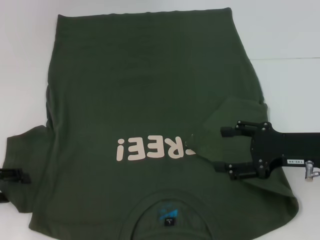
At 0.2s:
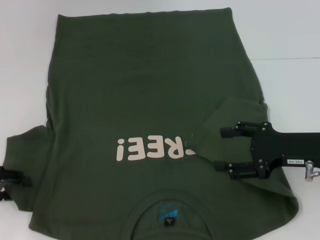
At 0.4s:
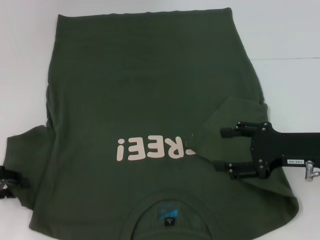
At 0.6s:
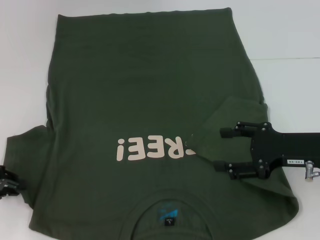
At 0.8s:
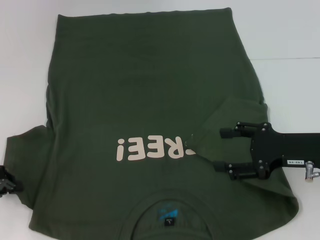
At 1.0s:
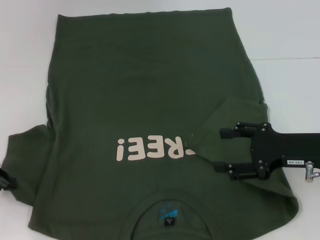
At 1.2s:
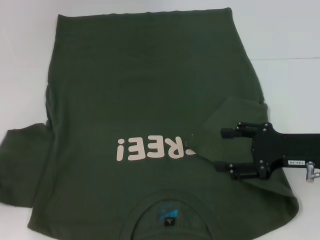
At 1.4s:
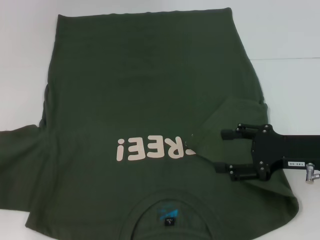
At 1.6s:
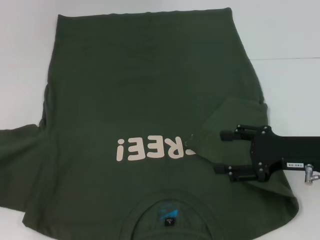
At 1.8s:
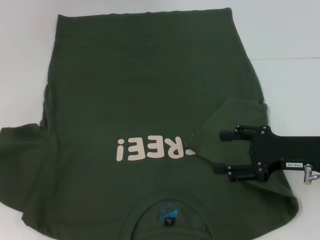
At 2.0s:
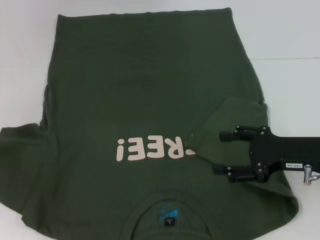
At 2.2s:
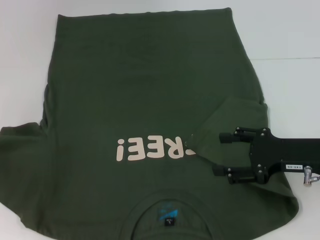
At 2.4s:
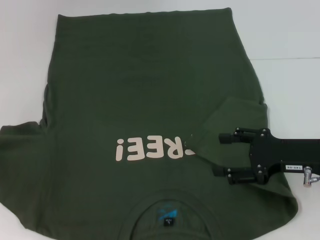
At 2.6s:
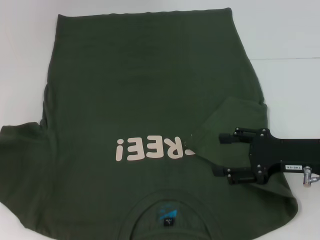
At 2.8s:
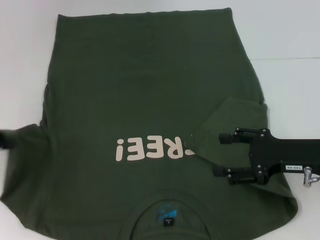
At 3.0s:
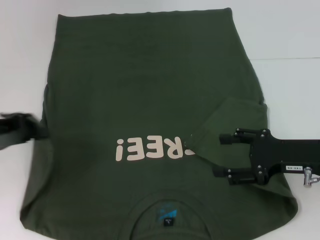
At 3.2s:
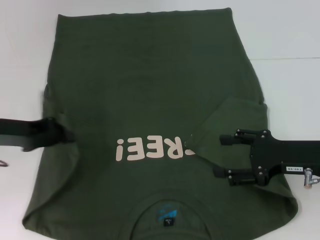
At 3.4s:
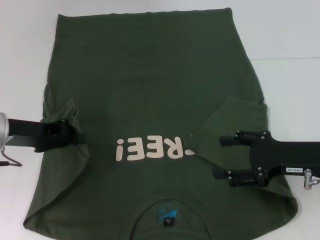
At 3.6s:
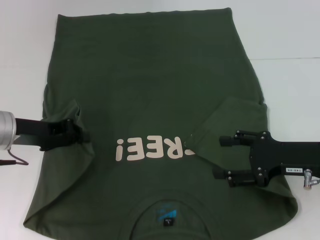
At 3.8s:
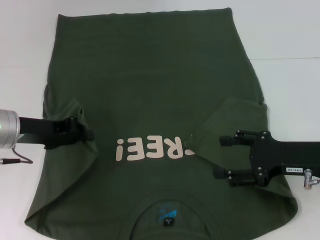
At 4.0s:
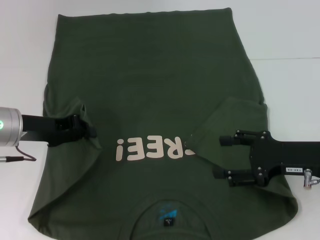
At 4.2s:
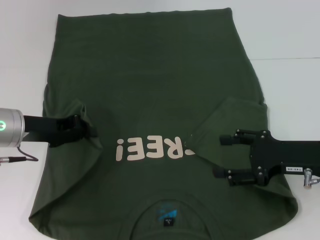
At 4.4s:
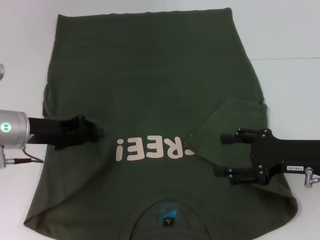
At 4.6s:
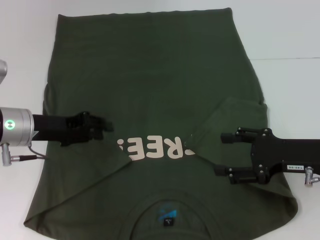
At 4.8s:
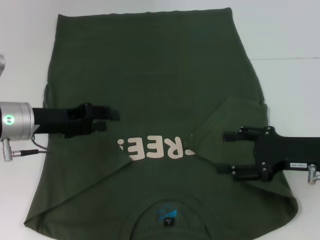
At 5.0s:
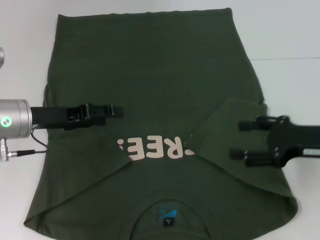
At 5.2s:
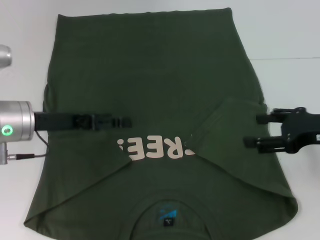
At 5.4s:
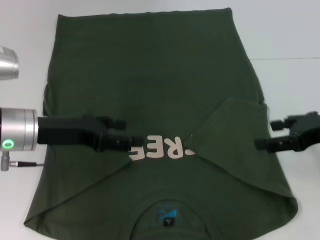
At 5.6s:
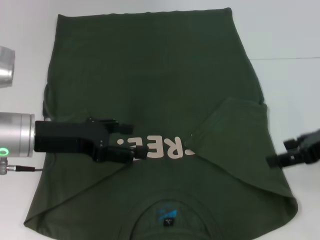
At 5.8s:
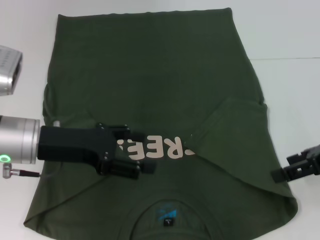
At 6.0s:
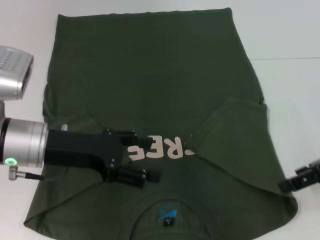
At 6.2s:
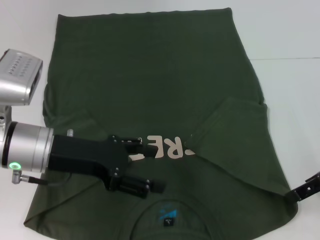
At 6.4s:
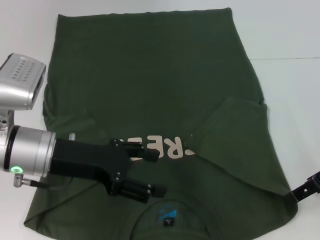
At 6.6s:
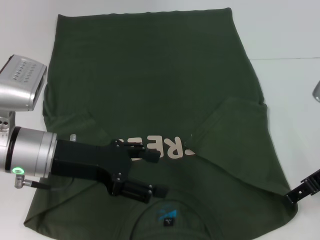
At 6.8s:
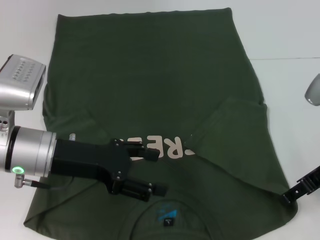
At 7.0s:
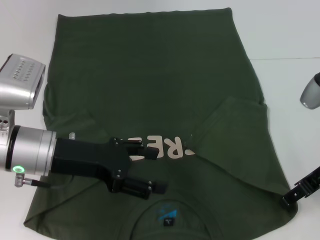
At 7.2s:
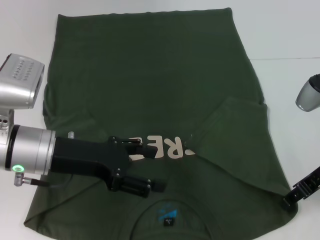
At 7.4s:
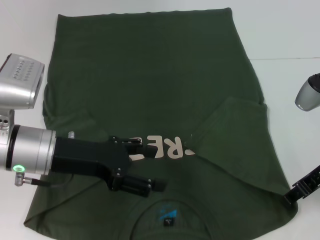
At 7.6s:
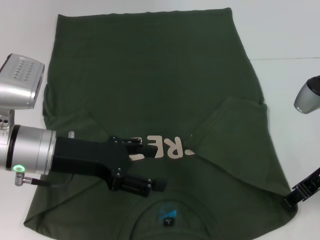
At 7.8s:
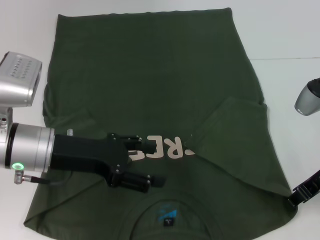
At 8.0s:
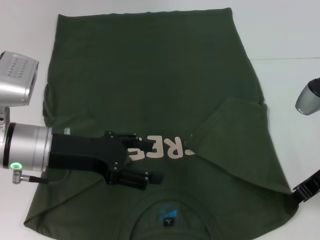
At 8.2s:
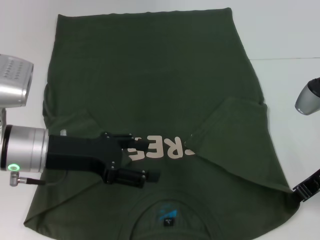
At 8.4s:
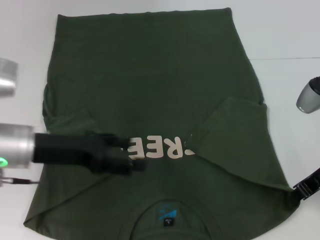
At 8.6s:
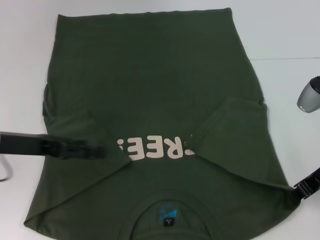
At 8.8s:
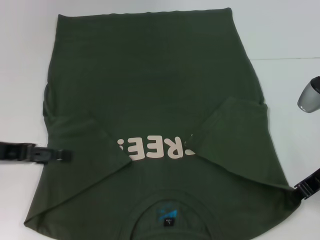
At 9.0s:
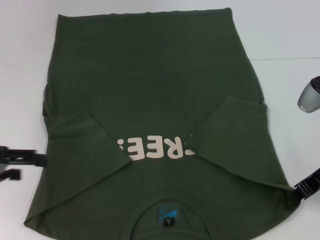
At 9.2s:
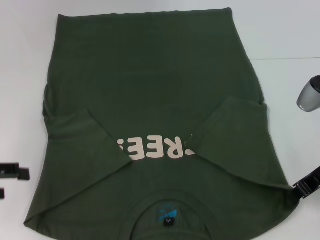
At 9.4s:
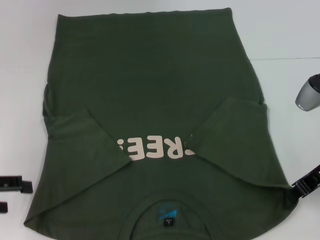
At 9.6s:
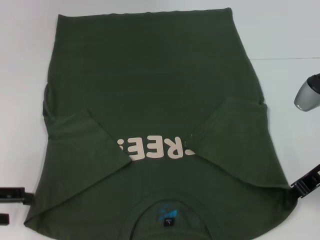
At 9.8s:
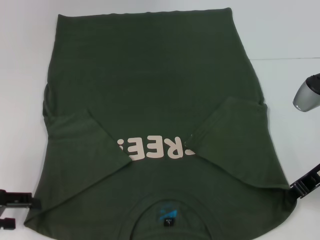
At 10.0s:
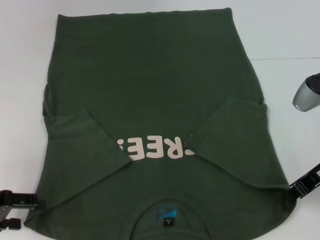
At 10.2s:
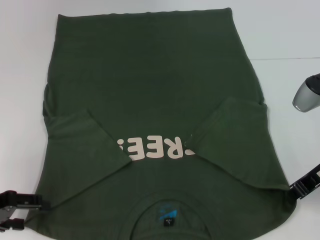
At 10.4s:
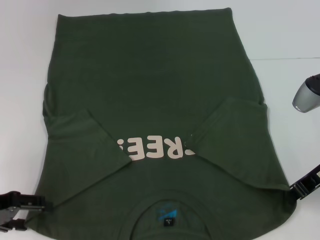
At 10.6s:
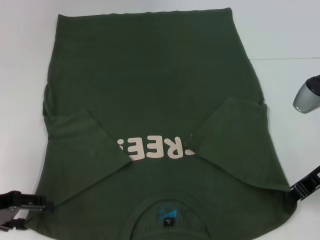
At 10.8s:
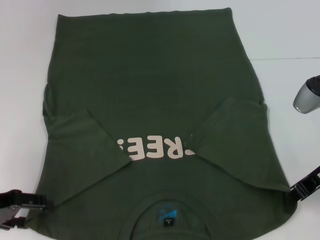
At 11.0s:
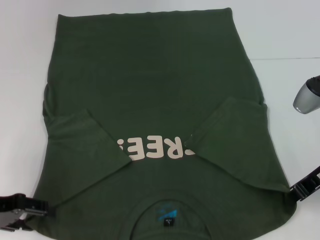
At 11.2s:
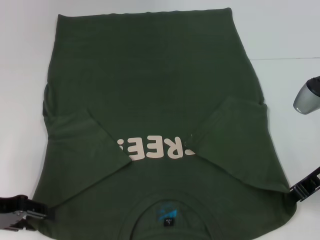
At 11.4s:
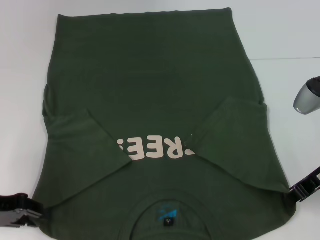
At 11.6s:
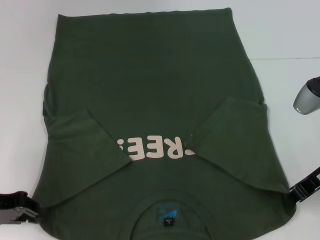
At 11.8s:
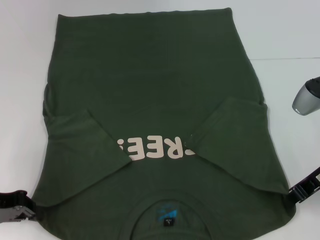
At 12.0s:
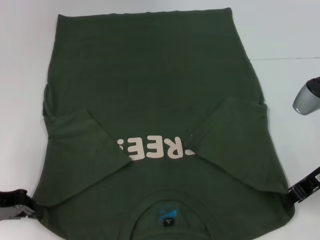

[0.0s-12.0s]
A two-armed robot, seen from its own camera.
Step, 0.0s to 4.6s: Fold the bottom left sleeve with your left hand.
Step, 4.8s to 8.6s: Grab the bottom right corner with your right hand.
Step, 8.8s to 12.0s: Grab the bottom left corner with your left hand.
0.0s to 1.6s: The left gripper closes up.
1.6s to 3.0s: The left gripper moves to the right, about 5 cm.
3.0s to 4.4s: The left gripper is displaced to the right by some 5 cm.
4.4s to 6.0s: The left gripper shifts by roughly 5 cm, and opens its fingers. The right gripper is displaced upward by roughly 10 cm.
6.0s to 7.6s: The right gripper shifts by roughly 5 cm, and closes up.
7.6s to 9.0s: The right gripper closes up. Meanwhile the left gripper travels to the left by approximately 15 cm.
9.0s to 10.4s: The left gripper is displaced downward by about 5 cm.
10.4s to 12.0s: The left gripper closes.

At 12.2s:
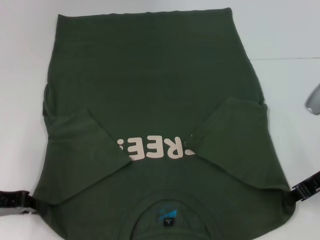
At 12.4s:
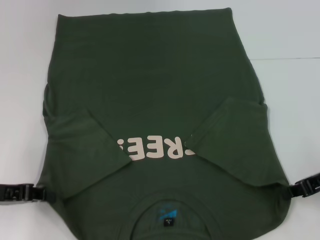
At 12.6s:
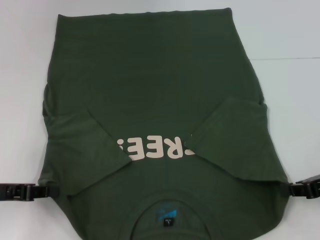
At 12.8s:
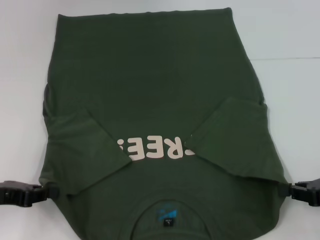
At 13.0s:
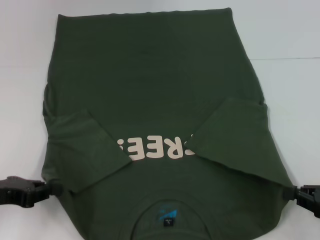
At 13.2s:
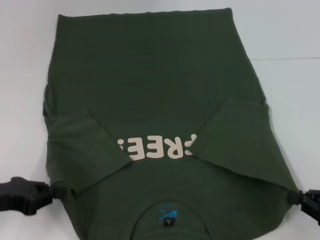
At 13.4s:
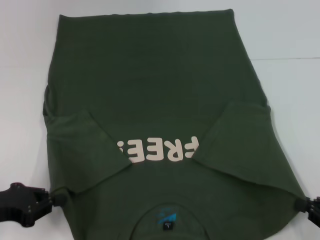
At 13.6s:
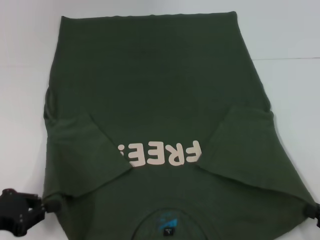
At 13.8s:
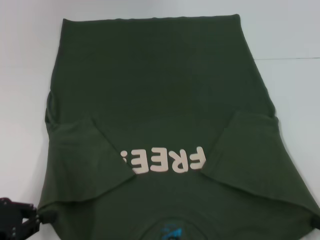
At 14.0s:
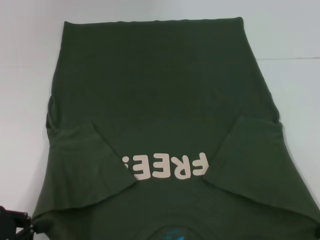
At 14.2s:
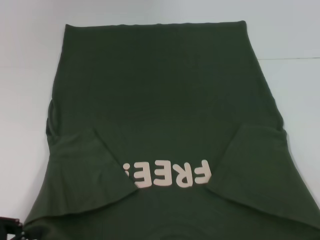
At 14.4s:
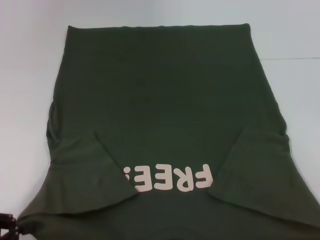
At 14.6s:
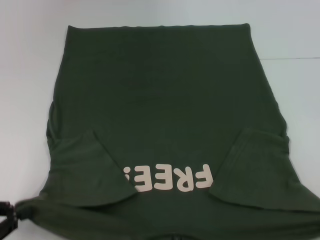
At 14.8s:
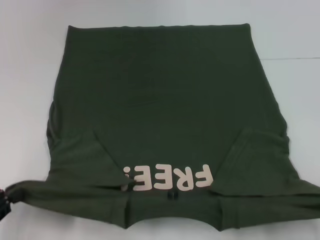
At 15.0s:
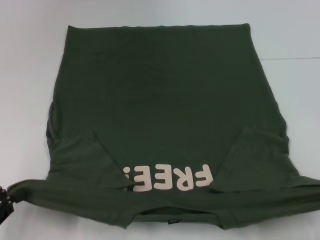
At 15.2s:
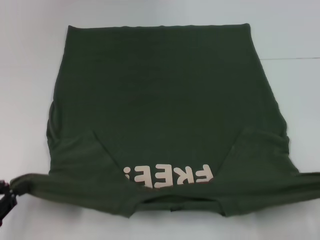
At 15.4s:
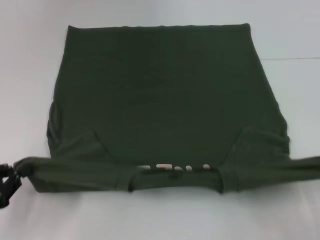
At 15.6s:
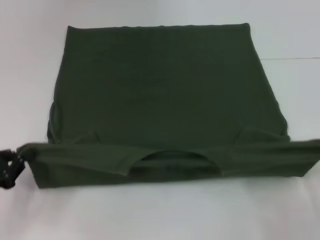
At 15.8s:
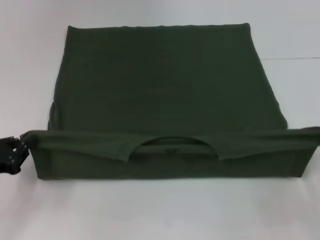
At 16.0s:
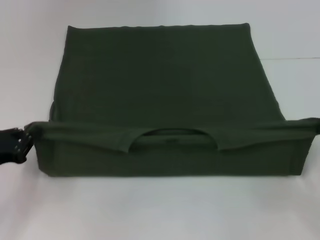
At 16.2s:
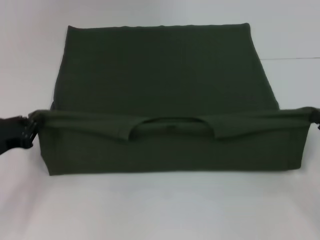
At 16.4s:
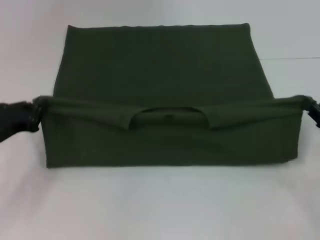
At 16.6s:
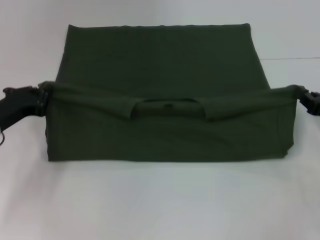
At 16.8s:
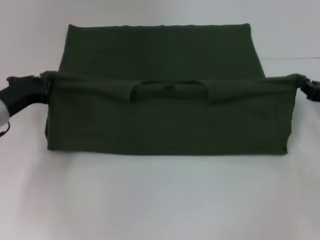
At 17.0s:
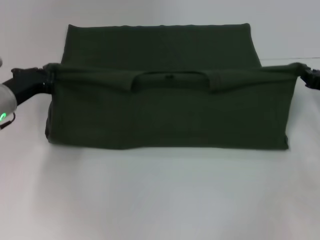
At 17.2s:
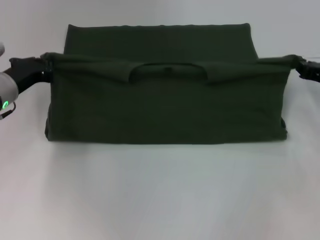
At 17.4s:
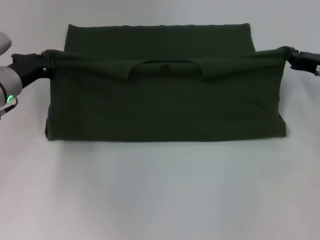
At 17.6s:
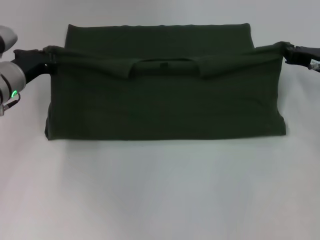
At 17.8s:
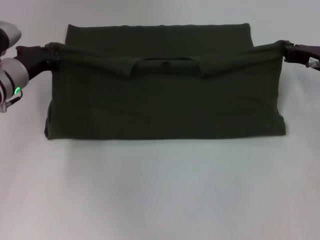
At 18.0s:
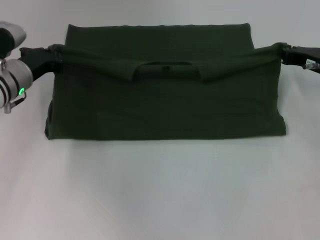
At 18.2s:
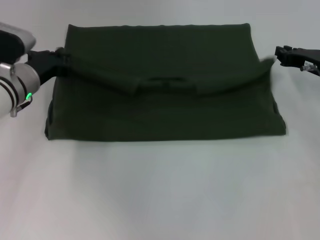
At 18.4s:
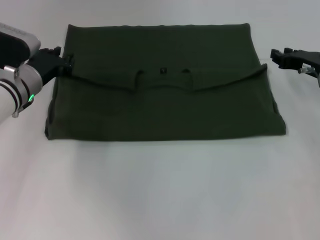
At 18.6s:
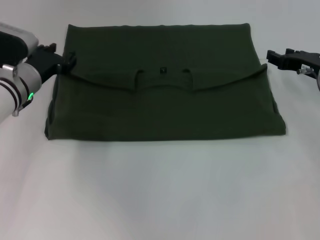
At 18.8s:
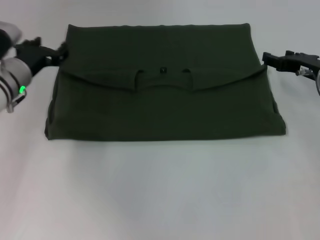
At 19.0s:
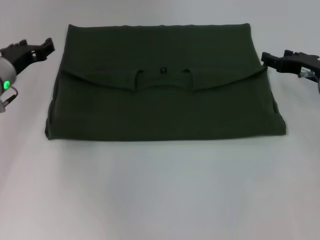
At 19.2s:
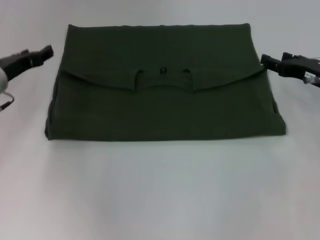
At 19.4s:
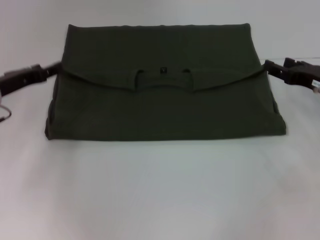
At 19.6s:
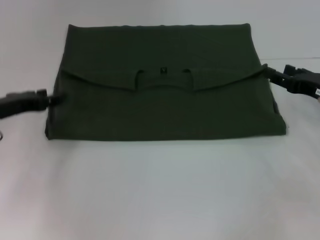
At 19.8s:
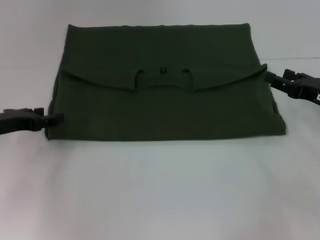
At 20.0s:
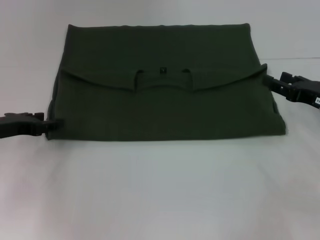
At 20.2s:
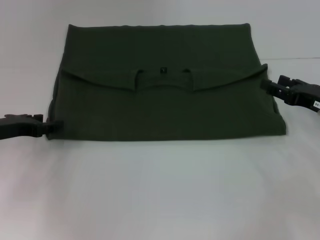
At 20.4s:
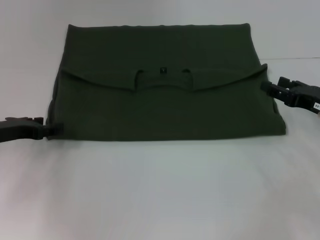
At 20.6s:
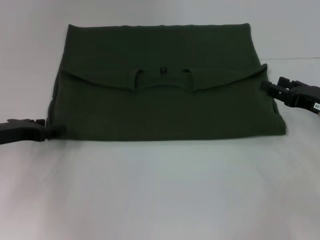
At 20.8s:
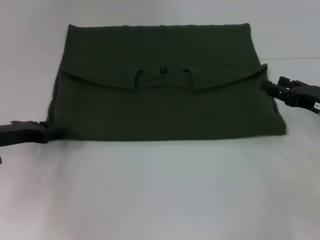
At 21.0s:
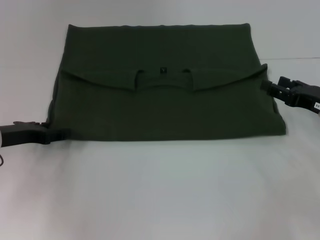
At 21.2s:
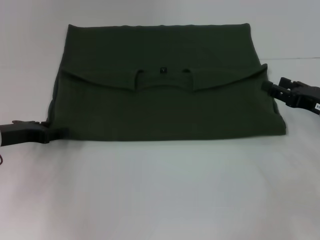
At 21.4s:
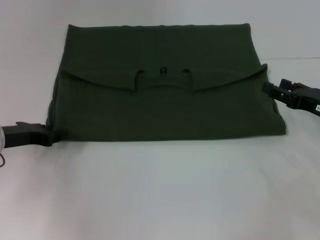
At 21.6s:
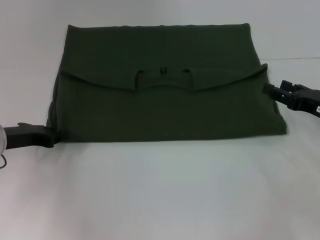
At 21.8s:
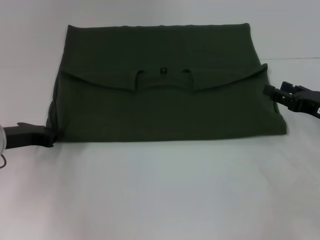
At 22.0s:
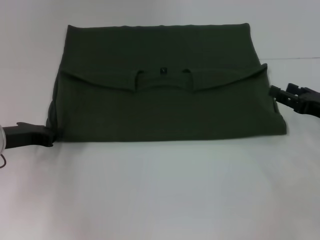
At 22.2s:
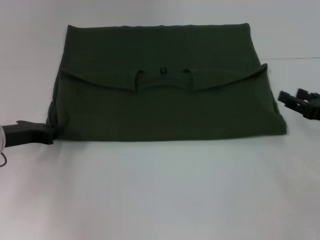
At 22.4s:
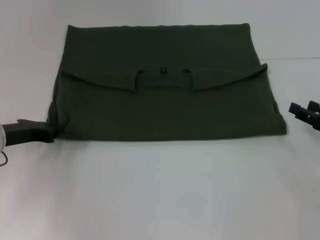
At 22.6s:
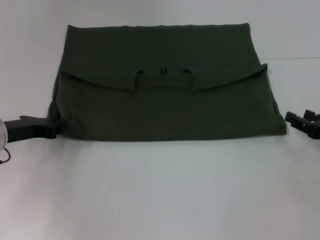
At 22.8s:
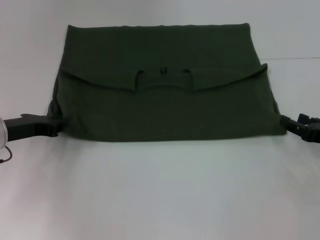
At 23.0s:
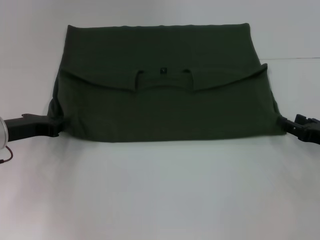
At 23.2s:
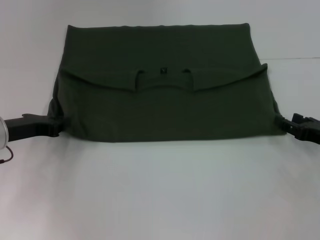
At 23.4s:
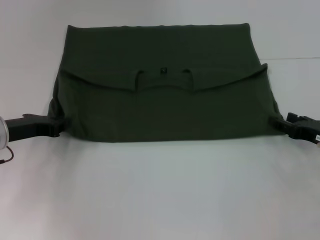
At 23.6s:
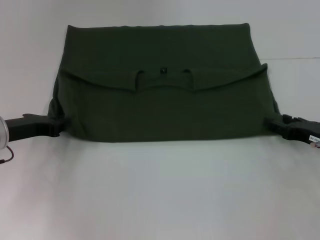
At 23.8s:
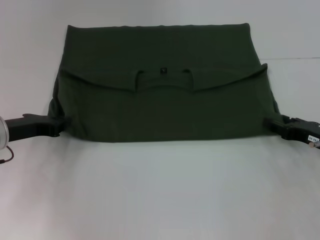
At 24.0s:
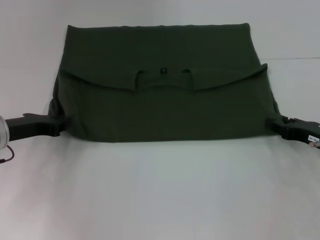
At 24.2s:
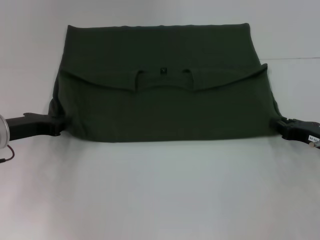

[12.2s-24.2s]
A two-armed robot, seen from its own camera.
Step, 12.2s to 18.2s: Fold the clothes with your left hand.
Step, 12.2s to 18.2s: Fold the clothes with your right hand.
12.2s to 13.8s: The right gripper shifts about 20 cm backward, downward and to the right. Meanwhile the left gripper heads backward, covering roughly 5 cm.
15.2s to 16.6s: Both grippers travel together forward, about 15 cm.
16.6s to 18.2s: The right gripper heads forward, covering roughly 10 cm, while the left gripper travels forward and to the right by about 10 cm.
18.2s to 19.8s: The right gripper goes roughly 5 cm backward, and opens; the left gripper goes about 10 cm to the left and backward, and opens its fingers.
19.8s to 21.2s: The grippers make only small movements.
21.2s to 22.6s: The right gripper ends up roughly 5 cm from where it was; the left gripper closes up.
22.6s to 24.2s: The right gripper closes its fingers.
